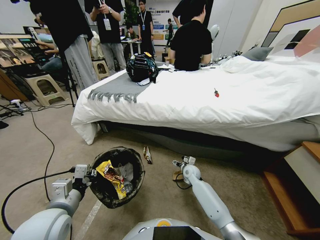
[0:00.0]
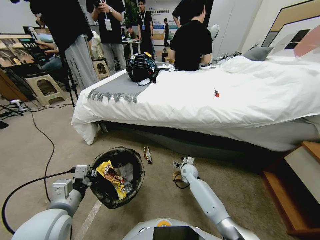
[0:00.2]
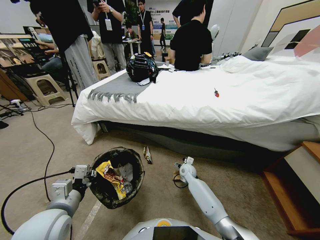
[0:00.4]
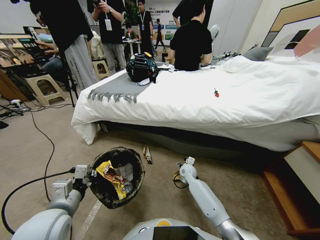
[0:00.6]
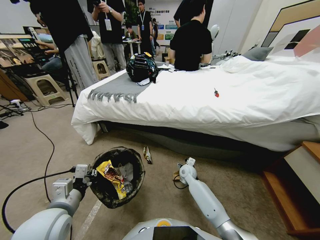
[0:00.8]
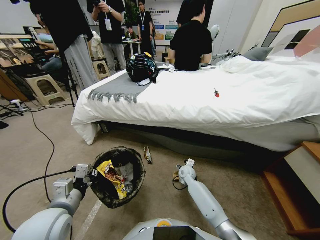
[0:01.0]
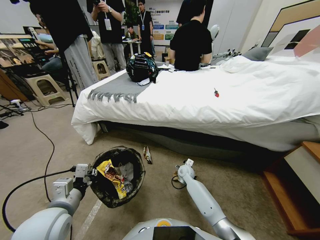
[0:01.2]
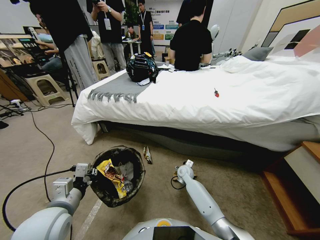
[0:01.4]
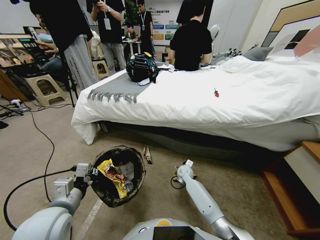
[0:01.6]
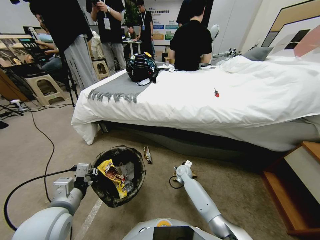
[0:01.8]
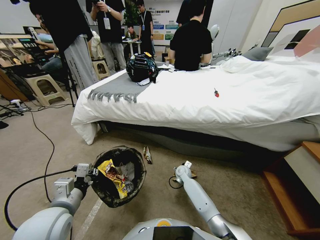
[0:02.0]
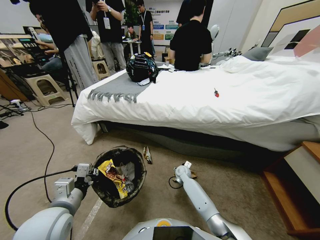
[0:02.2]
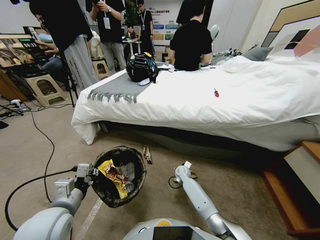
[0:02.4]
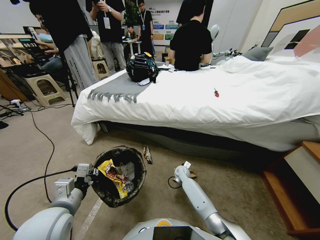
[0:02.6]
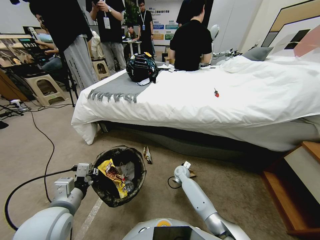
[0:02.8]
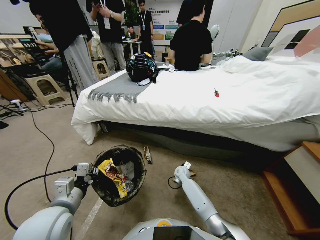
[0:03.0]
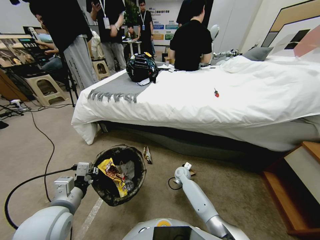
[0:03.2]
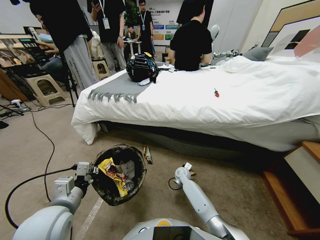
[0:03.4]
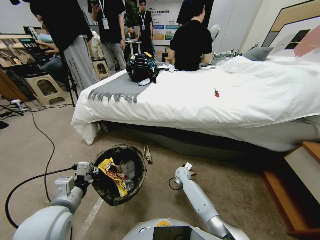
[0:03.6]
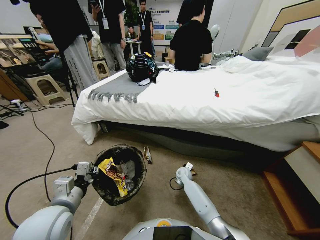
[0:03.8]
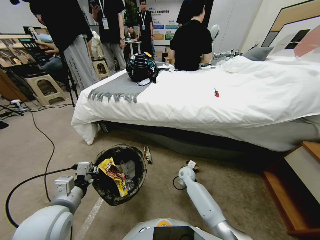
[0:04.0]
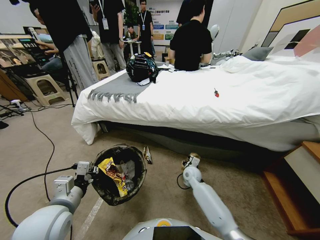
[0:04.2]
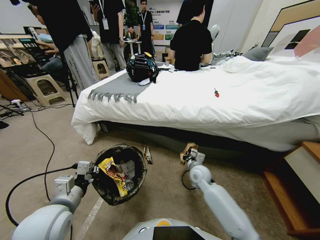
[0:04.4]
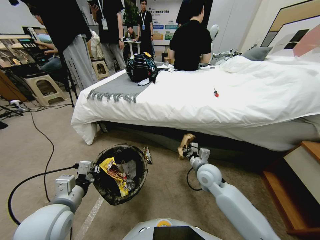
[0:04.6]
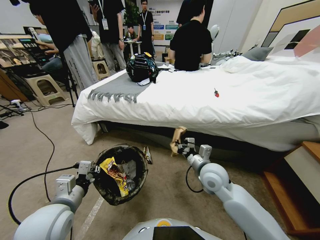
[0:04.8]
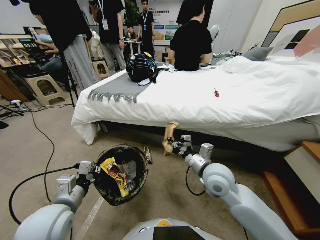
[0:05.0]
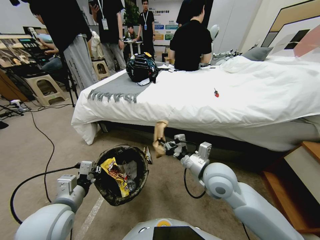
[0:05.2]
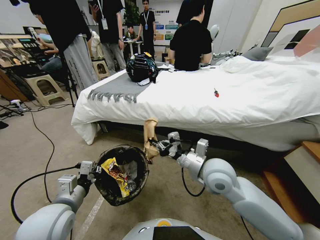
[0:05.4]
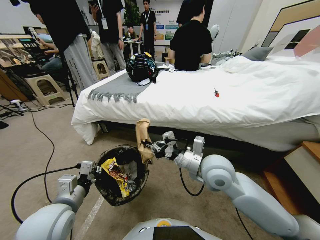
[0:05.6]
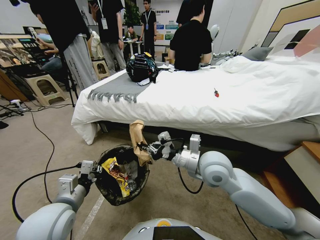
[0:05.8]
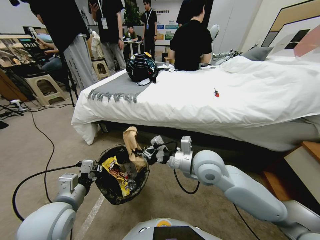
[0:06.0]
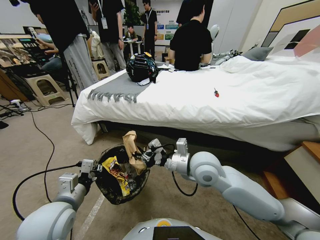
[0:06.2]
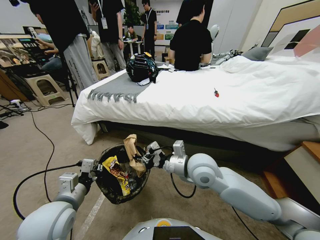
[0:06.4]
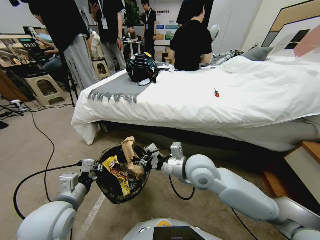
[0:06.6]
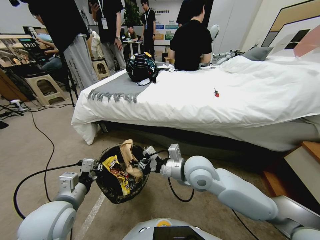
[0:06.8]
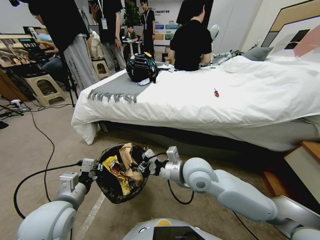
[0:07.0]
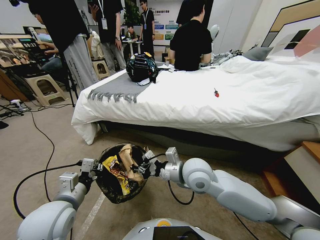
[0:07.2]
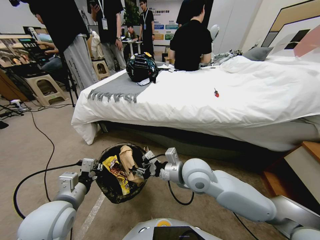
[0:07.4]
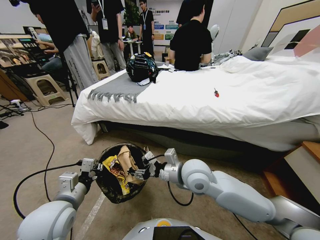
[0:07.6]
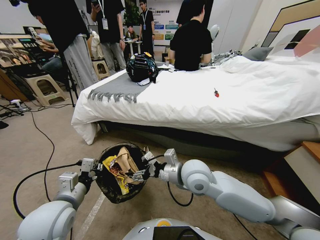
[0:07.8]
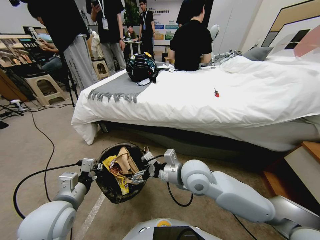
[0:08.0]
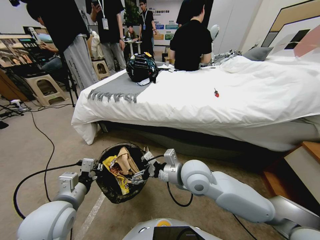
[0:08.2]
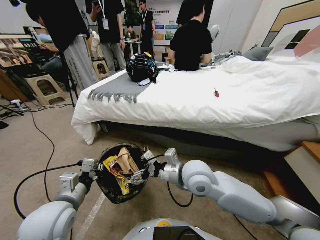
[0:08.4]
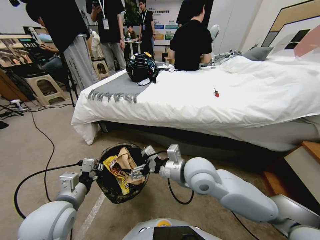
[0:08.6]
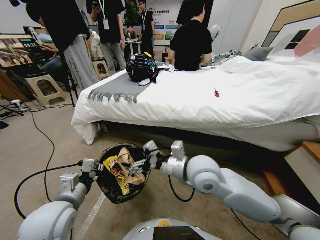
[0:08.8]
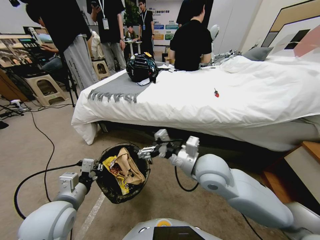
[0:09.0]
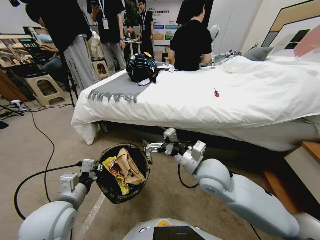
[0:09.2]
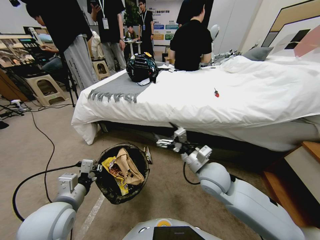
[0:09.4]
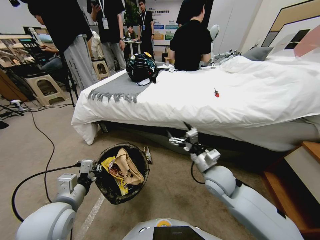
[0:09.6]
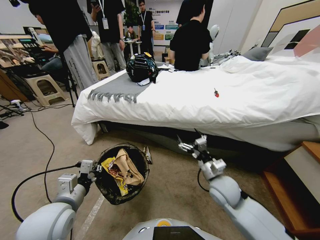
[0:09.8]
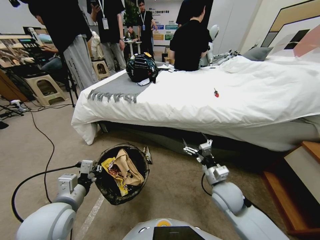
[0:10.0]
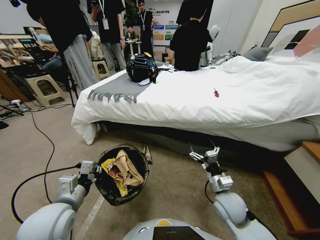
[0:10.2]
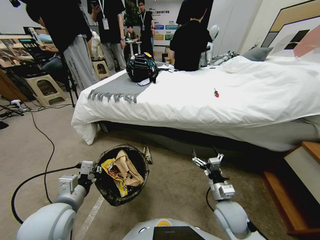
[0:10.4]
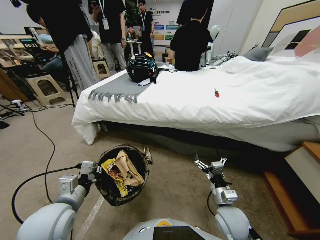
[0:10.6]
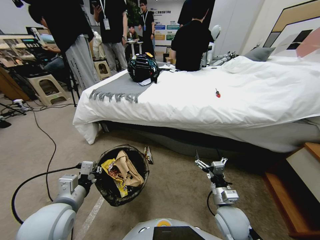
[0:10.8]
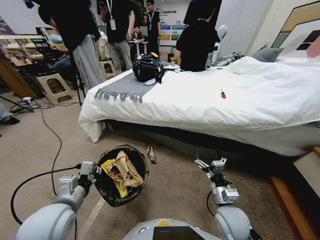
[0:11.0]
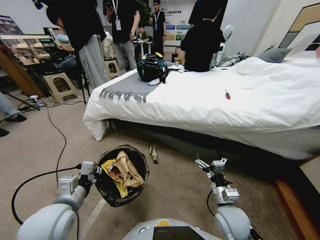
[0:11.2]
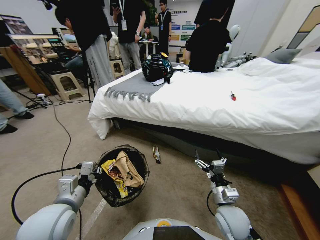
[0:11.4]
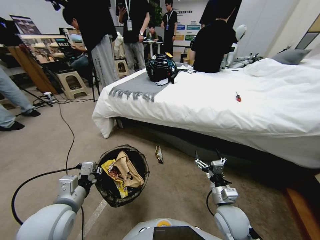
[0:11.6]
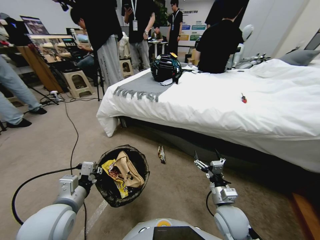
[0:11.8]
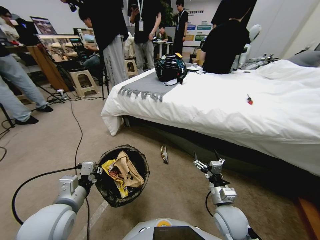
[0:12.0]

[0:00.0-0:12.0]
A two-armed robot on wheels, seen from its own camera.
Task of the whole recording: Pick up the trash bin, then pick up the garbage from the floor and place it into the trash bin.
0:00.0 to 0:01.6: The grippers stay close to where they were, moving slightly.
0:01.6 to 0:03.0: The right gripper closes.
0:03.0 to 0:04.4: The right gripper moves upward and backward, about 20 cm.
0:04.4 to 0:06.0: The right gripper travels upward and to the left by approximately 15 cm.
0:06.0 to 0:07.6: The right gripper opens.
0:09.0 to 0:10.4: The right gripper moves downward, to the right and backward, roughly 20 cm.

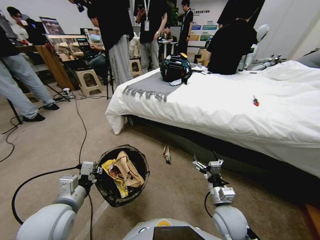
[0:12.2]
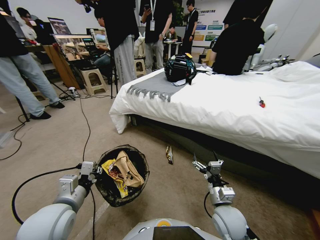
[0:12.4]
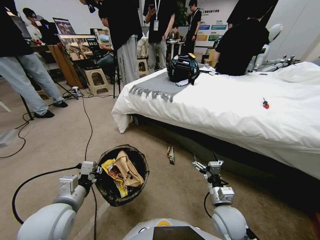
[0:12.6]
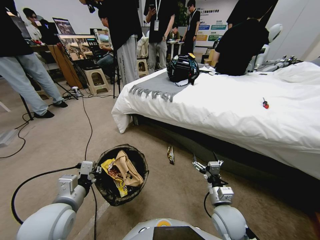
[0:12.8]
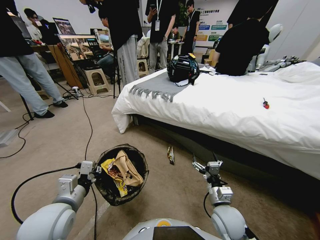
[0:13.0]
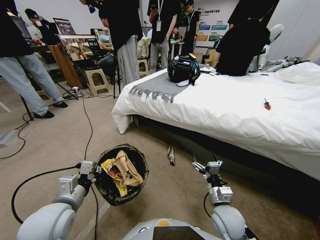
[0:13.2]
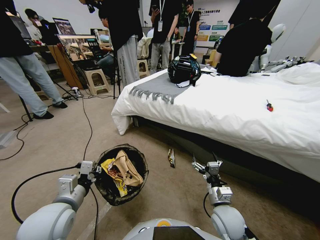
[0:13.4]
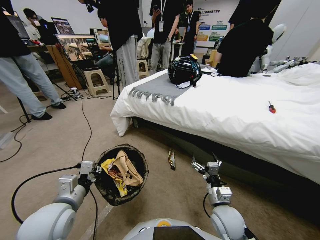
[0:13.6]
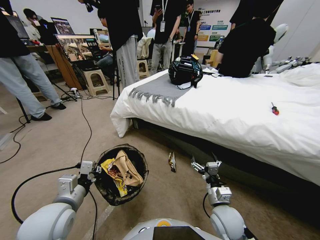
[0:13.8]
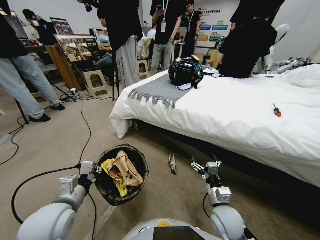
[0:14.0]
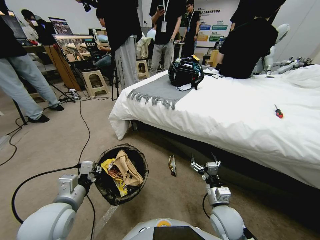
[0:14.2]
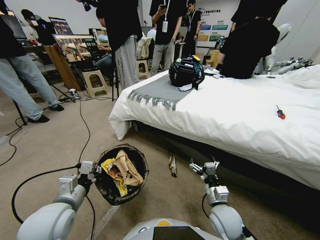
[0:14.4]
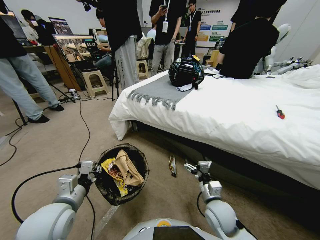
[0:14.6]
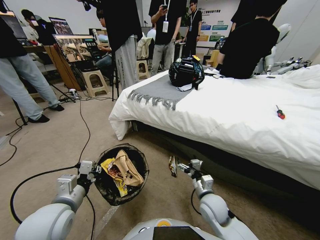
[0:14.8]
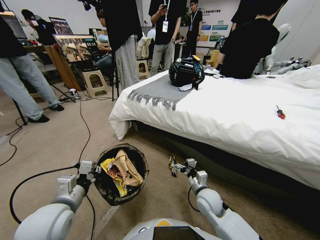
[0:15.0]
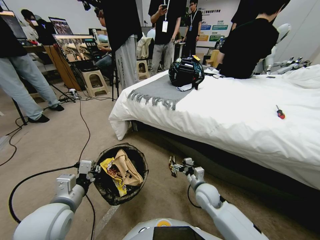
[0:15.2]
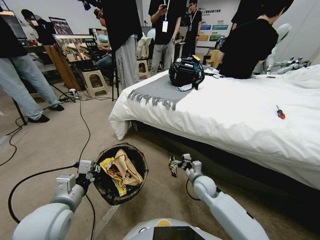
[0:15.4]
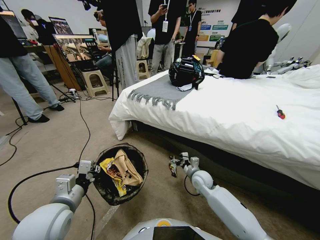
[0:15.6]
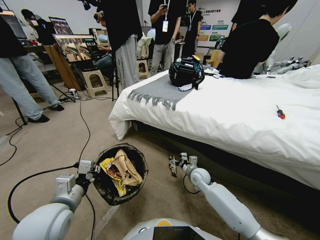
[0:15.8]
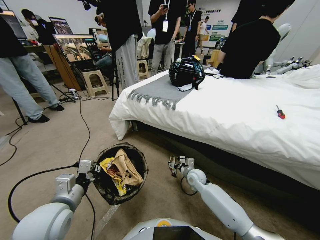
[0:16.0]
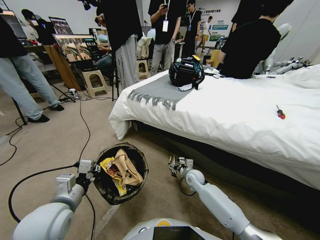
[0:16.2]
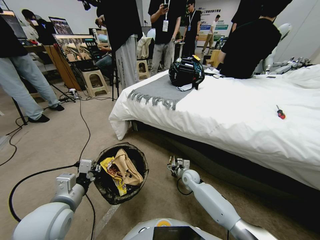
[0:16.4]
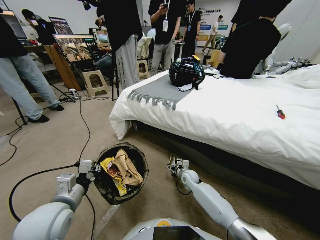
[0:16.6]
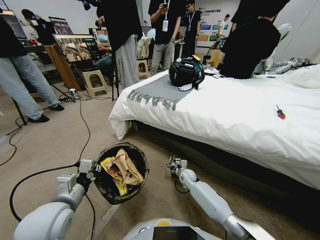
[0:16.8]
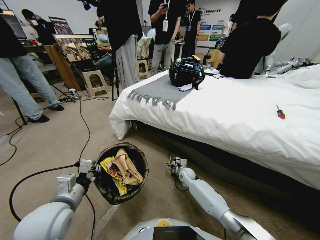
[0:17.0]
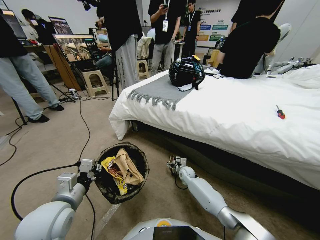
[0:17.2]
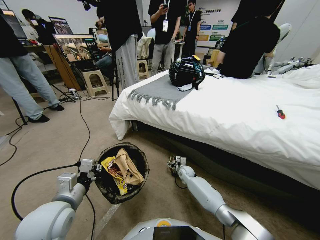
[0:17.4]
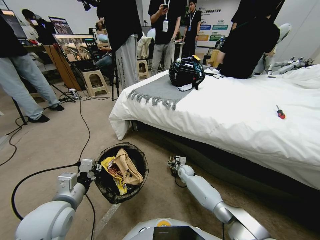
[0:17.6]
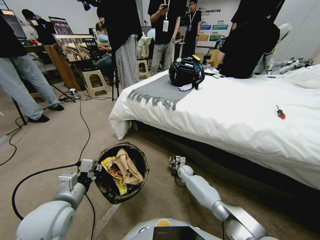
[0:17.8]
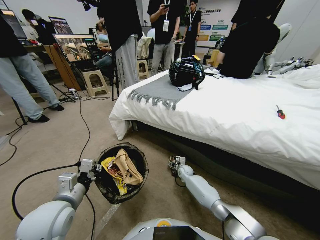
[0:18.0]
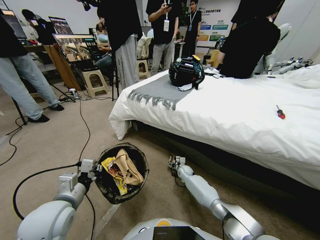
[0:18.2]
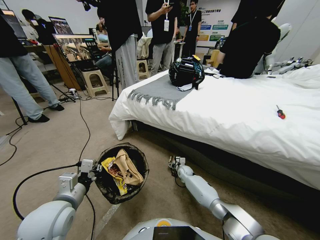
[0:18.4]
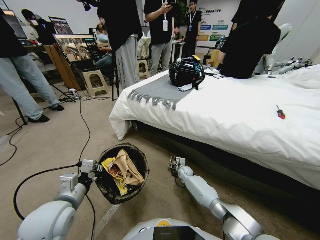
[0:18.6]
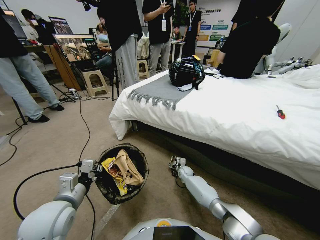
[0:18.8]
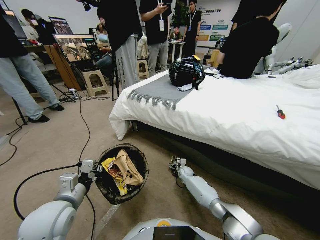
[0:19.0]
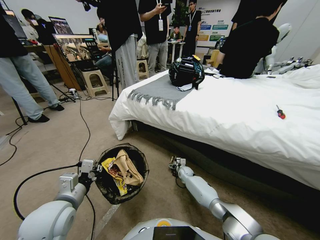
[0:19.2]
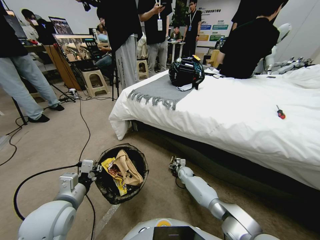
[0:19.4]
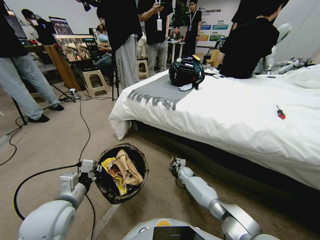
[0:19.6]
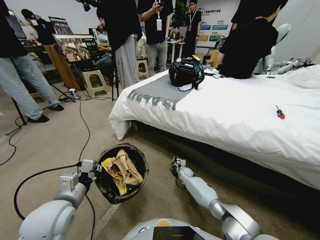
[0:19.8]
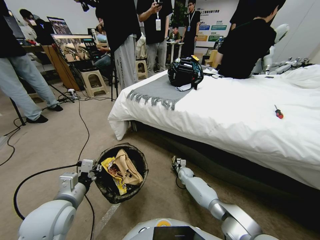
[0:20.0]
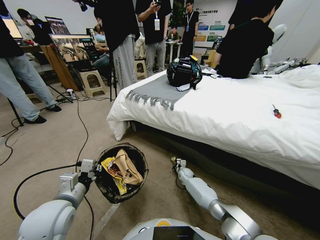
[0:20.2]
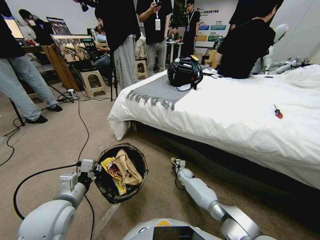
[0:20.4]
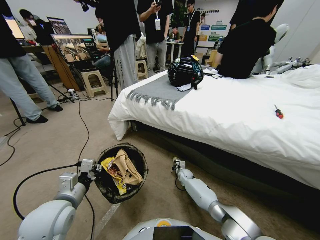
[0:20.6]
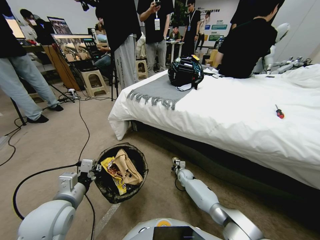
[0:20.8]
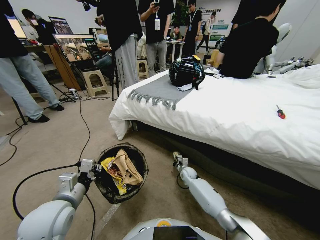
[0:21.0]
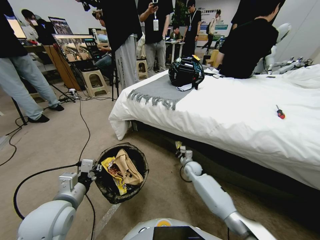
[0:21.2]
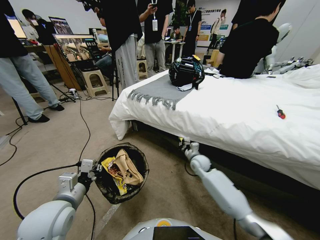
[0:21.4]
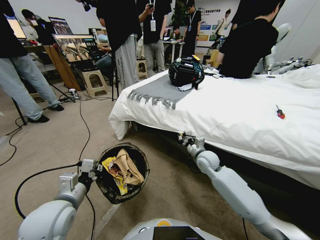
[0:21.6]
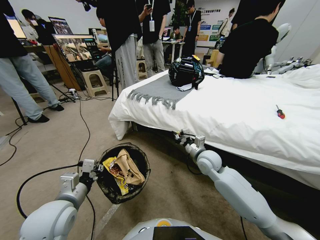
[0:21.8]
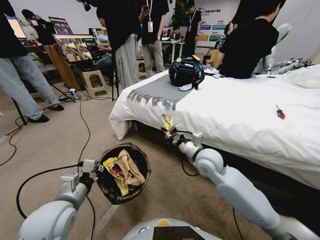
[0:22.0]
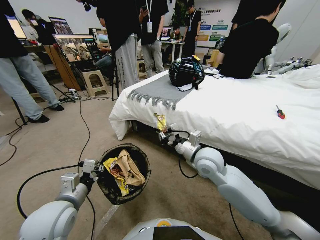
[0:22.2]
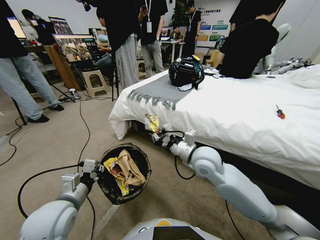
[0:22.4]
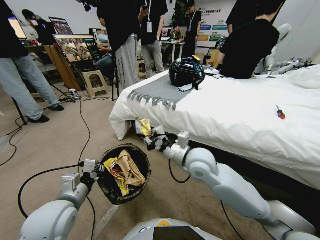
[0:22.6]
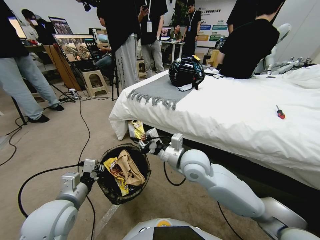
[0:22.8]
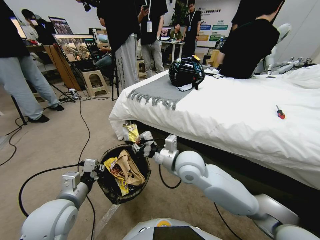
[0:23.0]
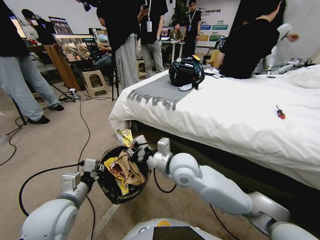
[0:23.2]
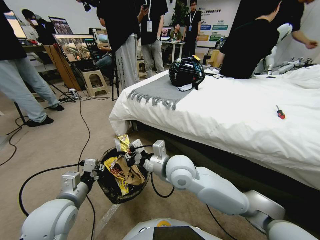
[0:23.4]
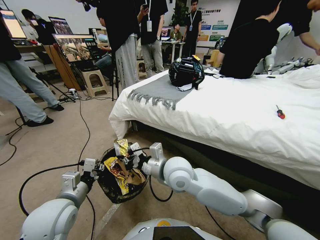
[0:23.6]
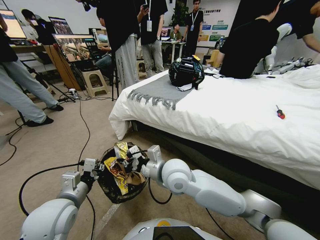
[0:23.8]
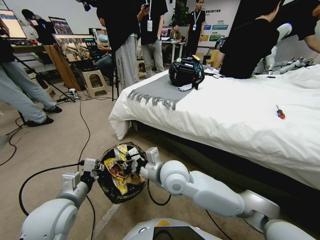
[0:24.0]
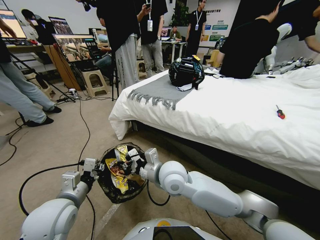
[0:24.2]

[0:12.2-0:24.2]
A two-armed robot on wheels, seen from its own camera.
Task of the whole recording: Pick up the trash bin, then pick up the garbage from the floor and place it into the trash bin.
0:13.8 to 0:15.2: The right gripper moves forward, about 10 cm.
0:15.2 to 0:16.6: The right gripper is displaced downward and forward by about 15 cm.
0:16.6 to 0:18.2: The right gripper goes about 10 cm downward and forward.
0:18.2 to 0:19.8: The grippers stay close to where they were, moving slightly.
0:19.8 to 0:21.2: The right gripper goes about 15 cm upward, and closes up.
0:21.2 to 0:22.6: The right gripper shifts approximately 25 cm upward, backward and to the left.
0:22.6 to 0:24.2: The right gripper heads to the left, covering approximately 10 cm.
